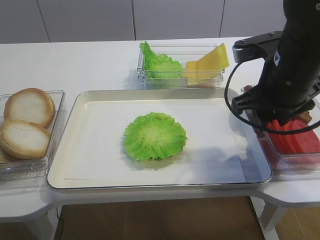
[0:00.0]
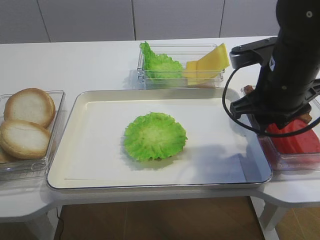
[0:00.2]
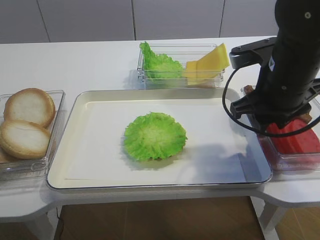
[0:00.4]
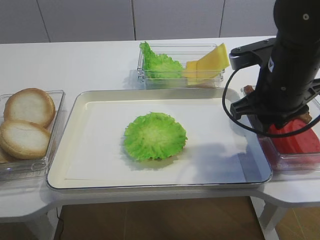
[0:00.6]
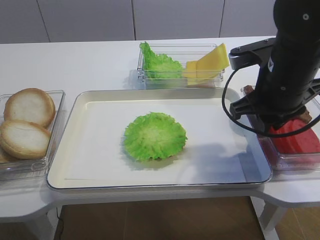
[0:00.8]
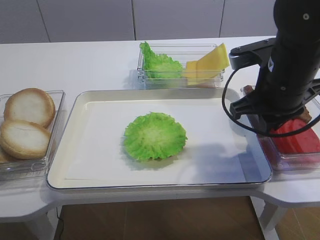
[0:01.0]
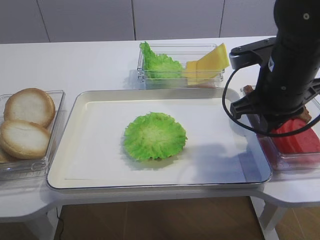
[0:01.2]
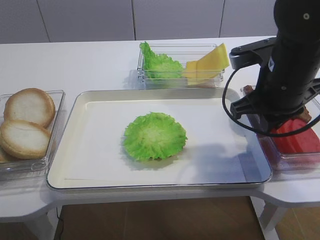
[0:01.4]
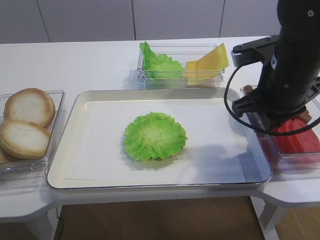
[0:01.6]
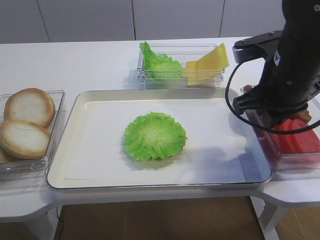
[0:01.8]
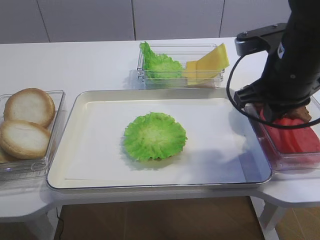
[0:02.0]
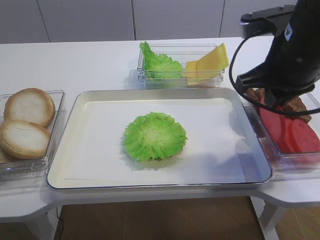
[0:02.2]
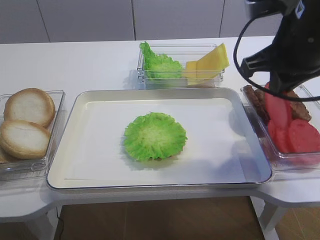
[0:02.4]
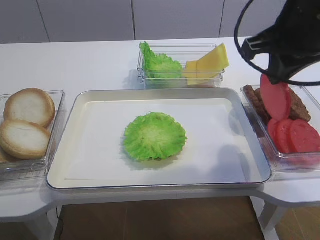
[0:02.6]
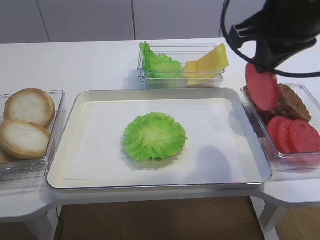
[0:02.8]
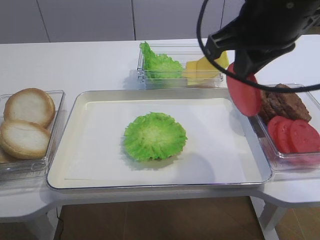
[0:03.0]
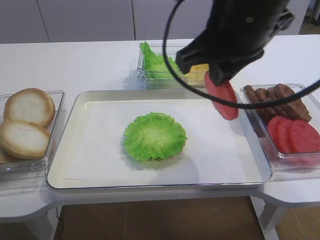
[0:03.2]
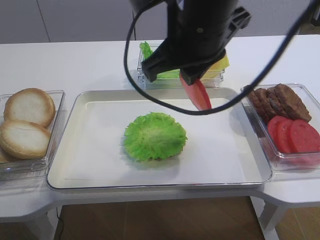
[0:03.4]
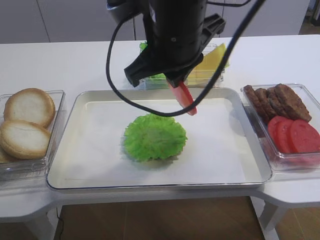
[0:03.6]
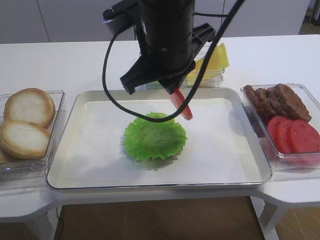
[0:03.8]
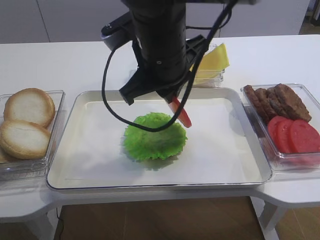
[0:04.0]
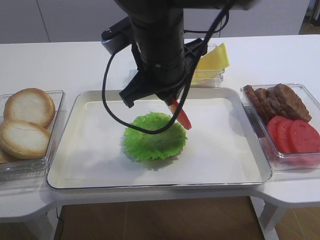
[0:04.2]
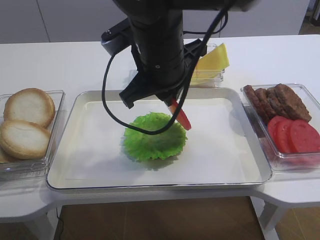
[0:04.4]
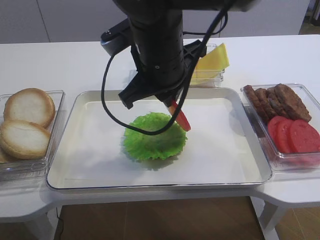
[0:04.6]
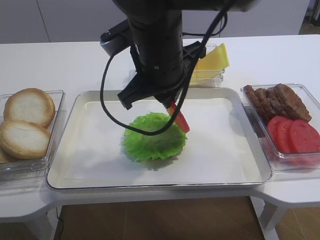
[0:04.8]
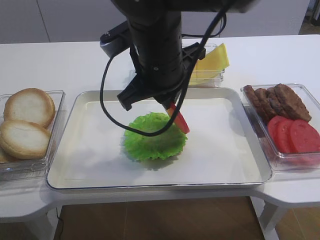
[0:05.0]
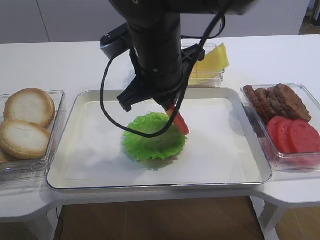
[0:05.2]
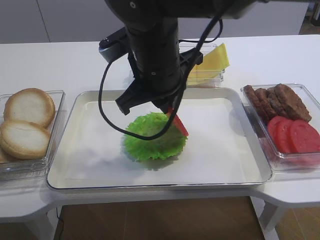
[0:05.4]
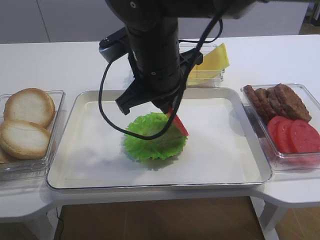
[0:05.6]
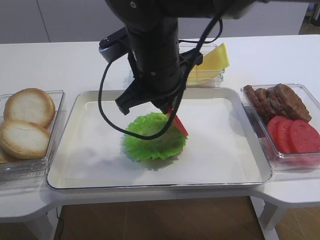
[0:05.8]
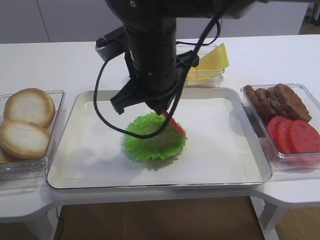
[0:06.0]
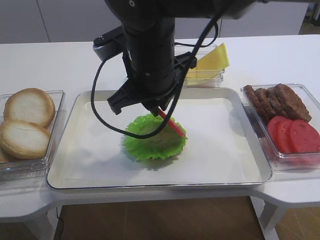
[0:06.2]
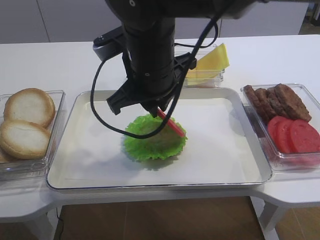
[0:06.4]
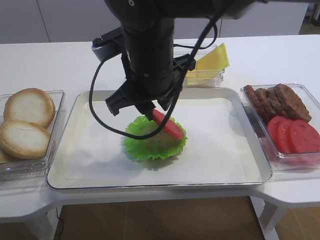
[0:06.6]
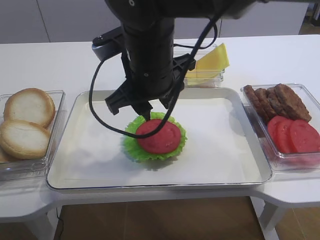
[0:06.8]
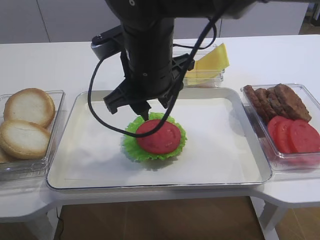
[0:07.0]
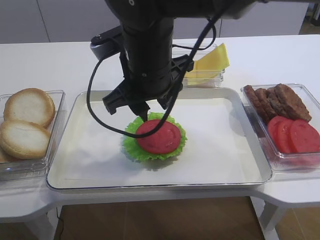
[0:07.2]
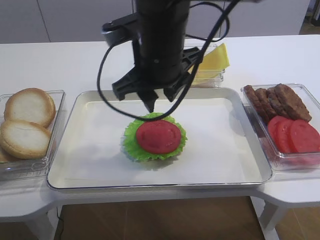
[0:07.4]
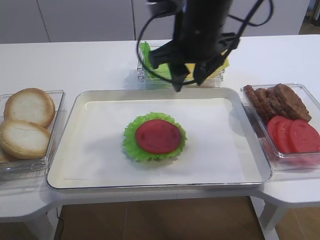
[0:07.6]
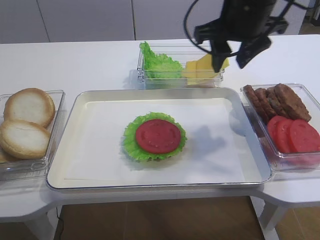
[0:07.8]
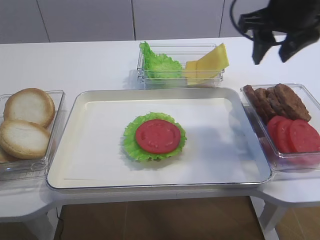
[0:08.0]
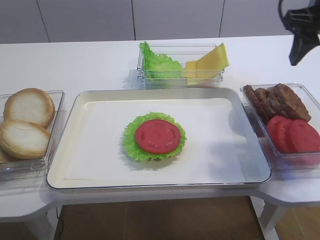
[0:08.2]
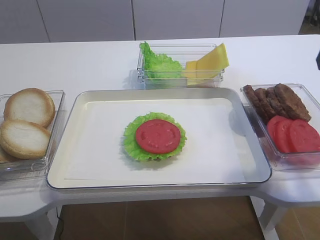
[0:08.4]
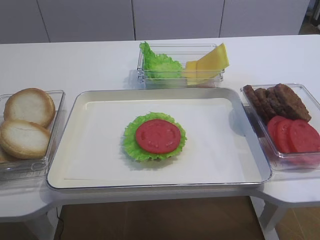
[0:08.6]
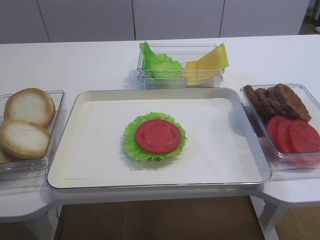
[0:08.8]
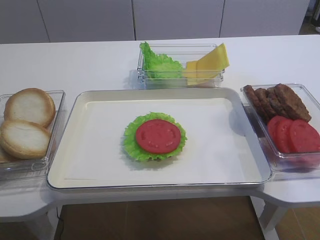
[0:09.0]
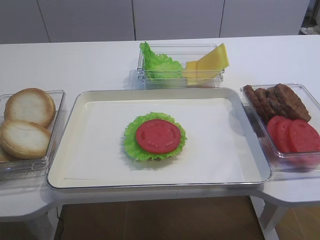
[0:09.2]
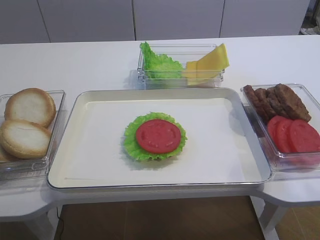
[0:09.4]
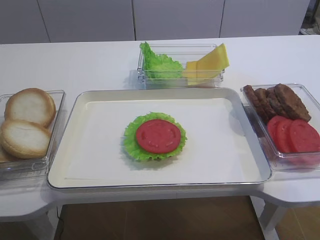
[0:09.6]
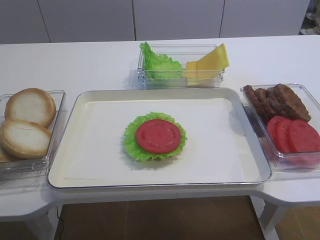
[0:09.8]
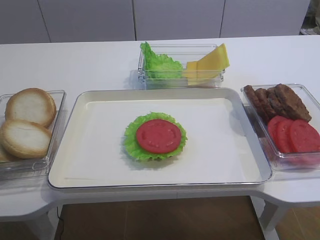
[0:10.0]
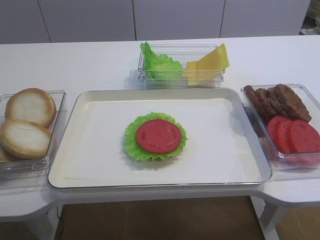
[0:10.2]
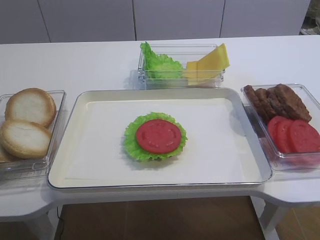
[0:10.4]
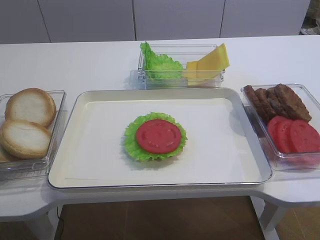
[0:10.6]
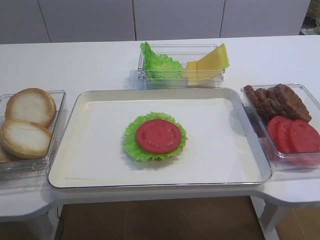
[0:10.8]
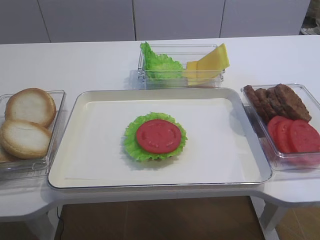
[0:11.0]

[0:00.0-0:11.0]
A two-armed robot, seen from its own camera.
Step, 0:00.0 to 0:02.2: Pick up the tomato slice with the right gripper.
Step, 0:02.4 to 0:07.2: Place the tomato slice on the lettuce leaf with the right gripper.
0:00.0 to 0:01.6: The right gripper closes up.
0:01.6 to 0:03.2: The right gripper shifts roughly 15 cm upward and to the left.
0:03.2 to 0:04.8: The right gripper moves to the left and downward, approximately 10 cm.
0:04.8 to 0:06.2: Neither gripper changes place.
0:06.2 to 0:07.8: The right gripper shifts roughly 15 cm to the right and forward, and opens.
0:07.8 to 0:09.4: The right gripper goes roughly 35 cm backward and to the right.

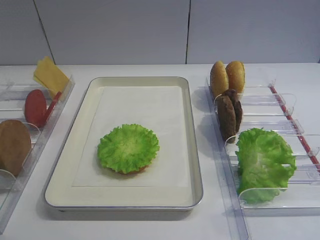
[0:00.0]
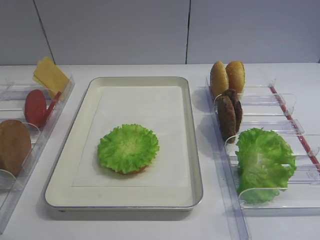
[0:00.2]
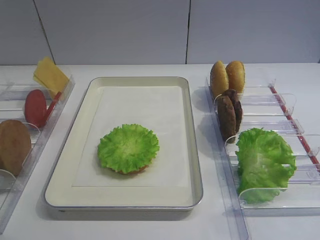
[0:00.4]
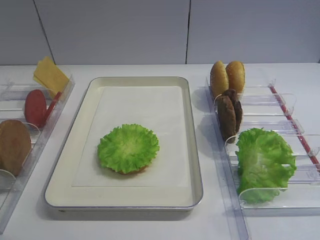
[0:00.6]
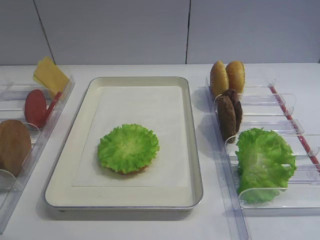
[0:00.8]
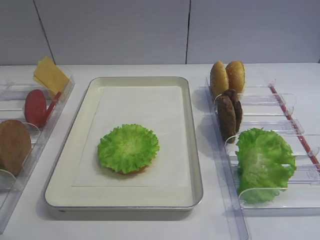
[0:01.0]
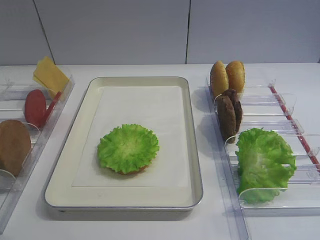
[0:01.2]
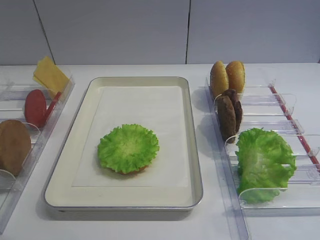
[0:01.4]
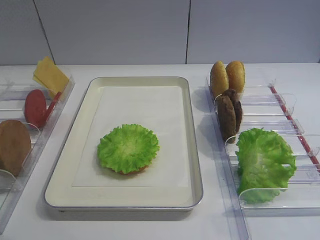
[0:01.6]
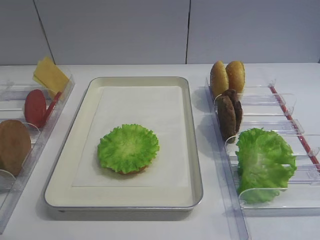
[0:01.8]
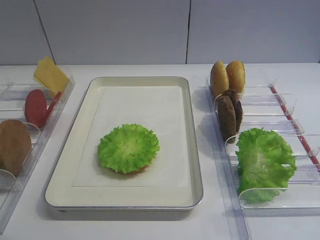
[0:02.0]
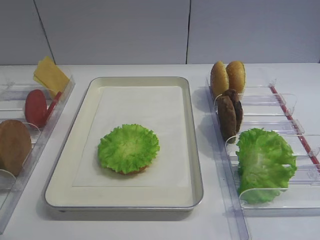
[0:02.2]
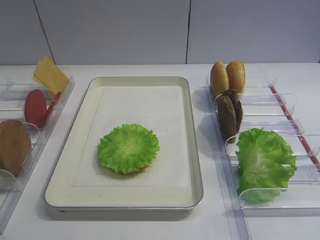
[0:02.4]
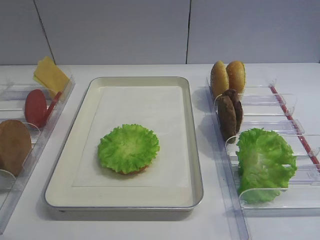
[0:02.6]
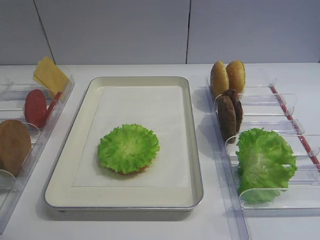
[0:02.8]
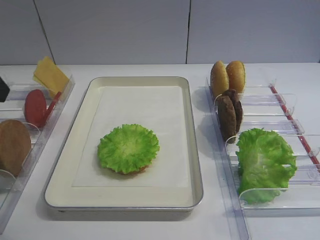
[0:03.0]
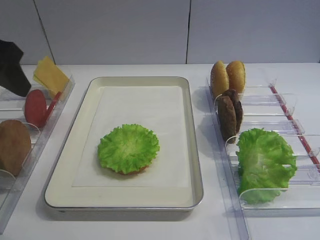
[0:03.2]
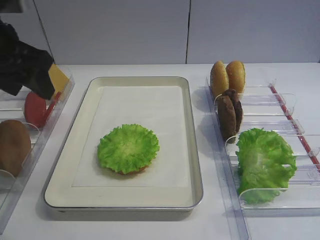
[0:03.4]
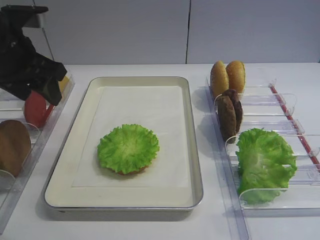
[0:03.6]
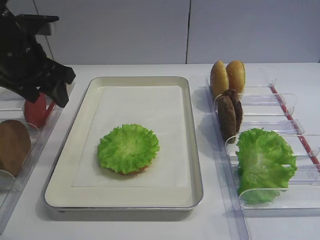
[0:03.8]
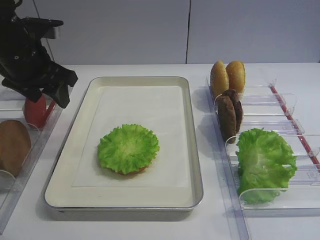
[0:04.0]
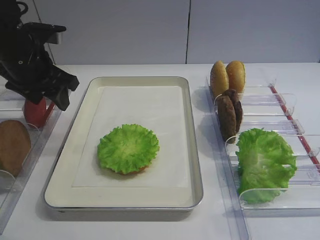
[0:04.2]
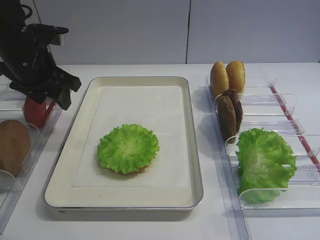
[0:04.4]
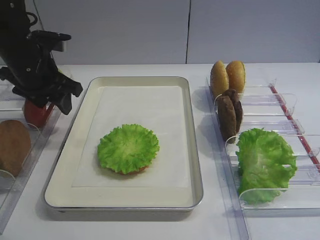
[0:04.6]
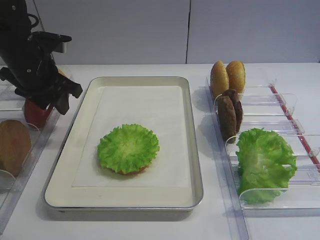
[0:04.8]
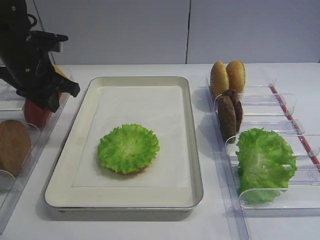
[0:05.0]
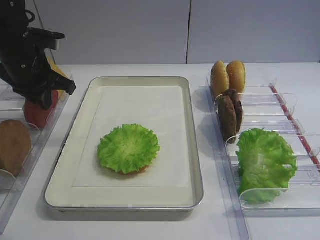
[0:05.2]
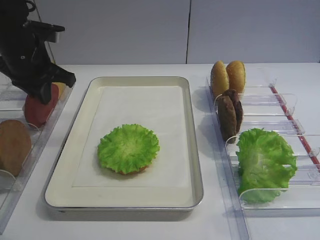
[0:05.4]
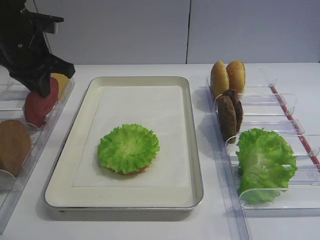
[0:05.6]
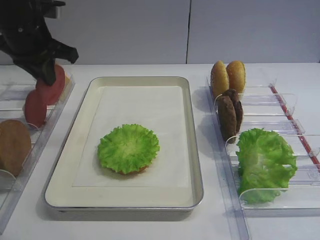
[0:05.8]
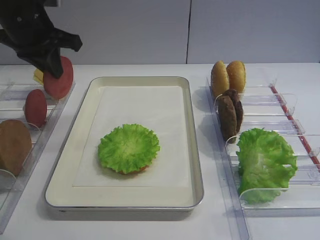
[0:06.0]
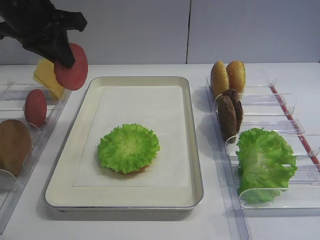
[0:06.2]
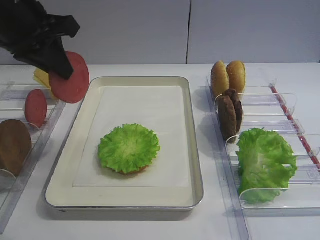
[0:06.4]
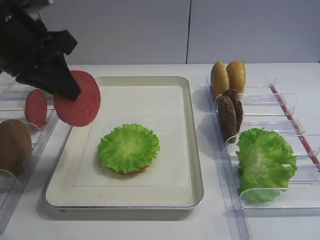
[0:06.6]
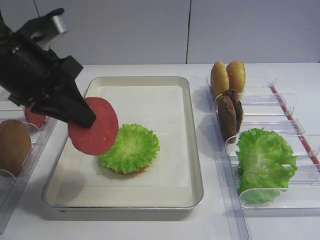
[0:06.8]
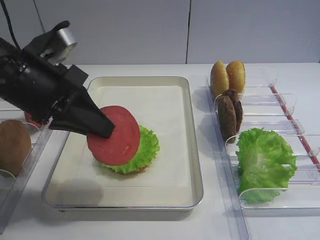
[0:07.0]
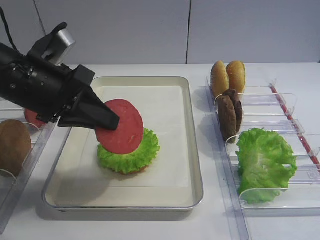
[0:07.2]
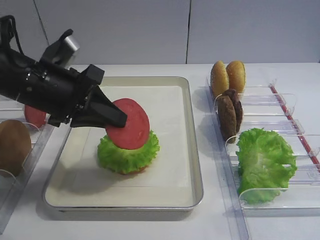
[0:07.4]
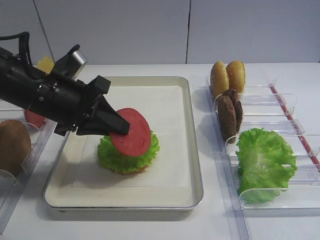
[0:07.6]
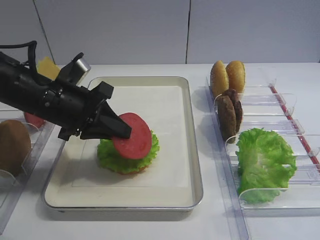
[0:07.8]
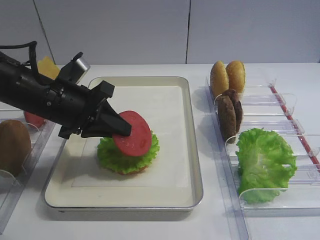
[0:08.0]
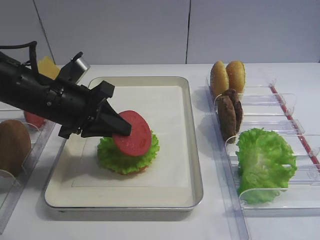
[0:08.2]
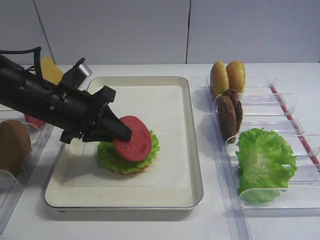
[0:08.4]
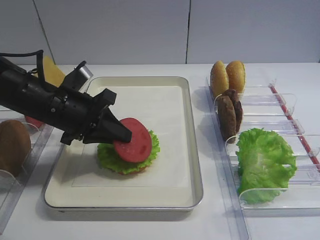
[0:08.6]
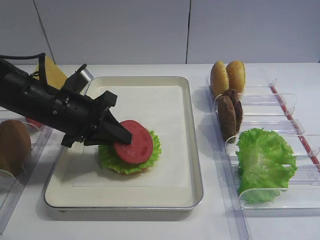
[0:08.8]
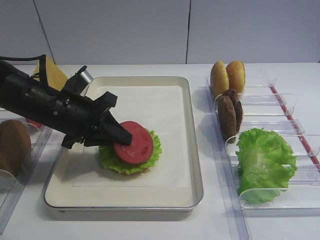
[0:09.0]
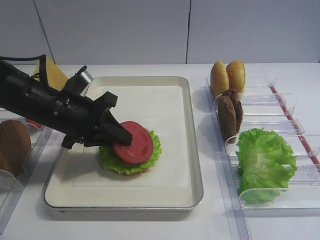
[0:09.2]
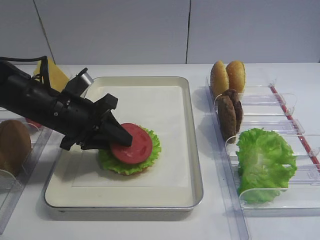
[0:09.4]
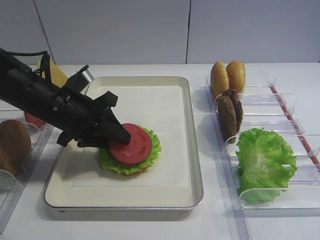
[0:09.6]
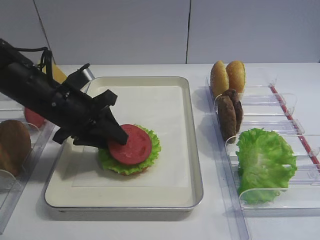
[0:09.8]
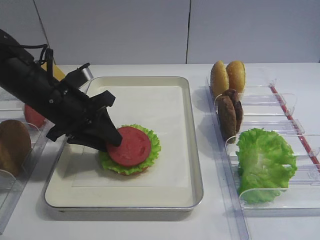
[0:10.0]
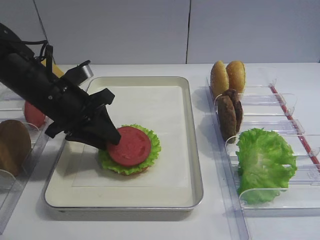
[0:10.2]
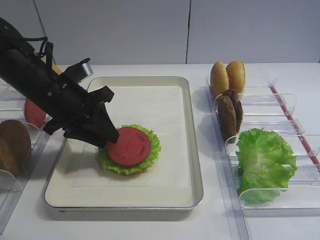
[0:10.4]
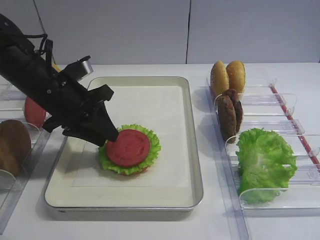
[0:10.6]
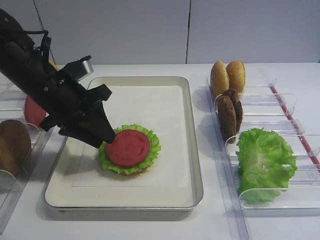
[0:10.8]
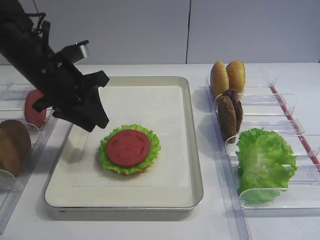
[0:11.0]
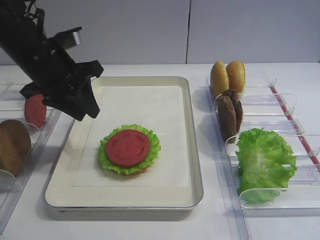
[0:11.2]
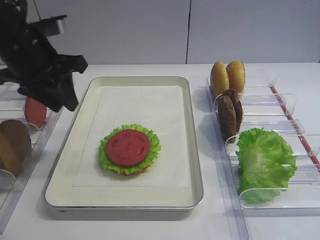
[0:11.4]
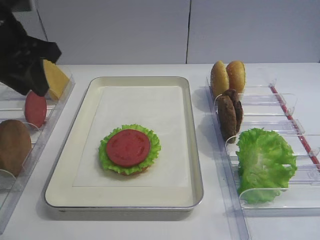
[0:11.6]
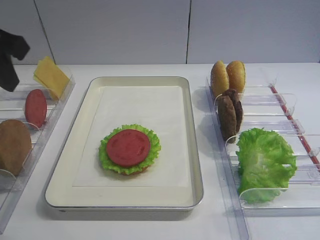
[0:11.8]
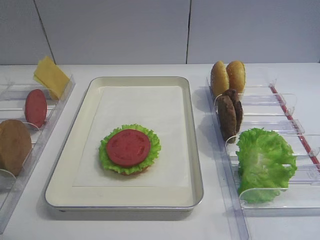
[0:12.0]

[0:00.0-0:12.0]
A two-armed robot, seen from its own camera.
Step, 0:00.0 to 0:05.8: Pick up the tomato slice with the left gripper.
Step, 0:06.0 to 0:11.0: Place the tomato slice on the lettuce leaf with the left gripper.
0:03.0 to 0:04.4: The left gripper goes some 20 cm forward and downward.
0:04.4 to 0:06.0: The left gripper is displaced upward by approximately 5 cm, and closes its fingers.
0:06.0 to 0:07.6: The left gripper travels backward, downward and to the right by approximately 15 cm.
0:07.6 to 0:09.0: The grippers stay close to where they were, moving slightly.
0:09.0 to 0:10.4: The left gripper opens up.
0:10.4 to 0:12.0: The left gripper heads upward, backward and to the left, covering approximately 20 cm.
